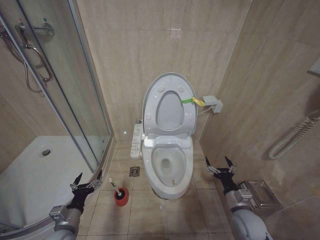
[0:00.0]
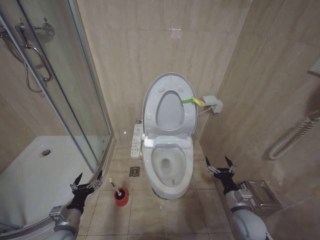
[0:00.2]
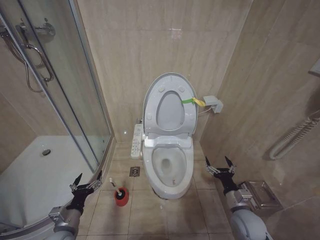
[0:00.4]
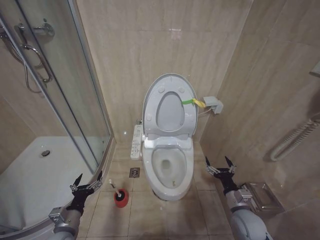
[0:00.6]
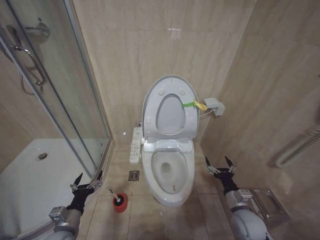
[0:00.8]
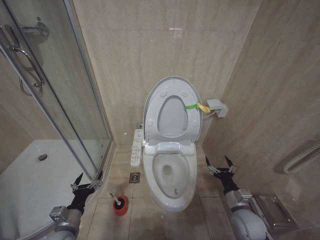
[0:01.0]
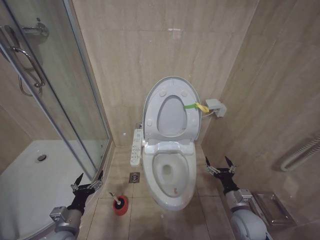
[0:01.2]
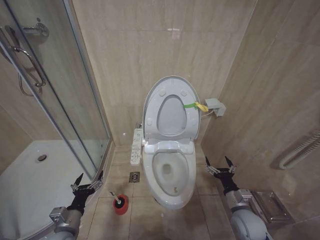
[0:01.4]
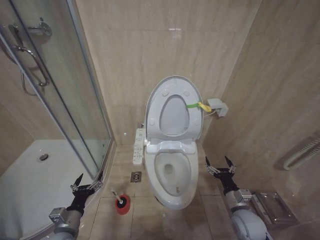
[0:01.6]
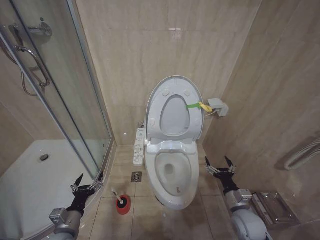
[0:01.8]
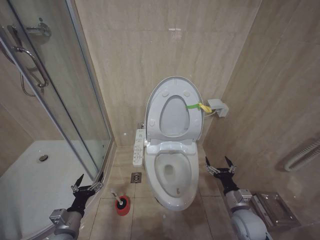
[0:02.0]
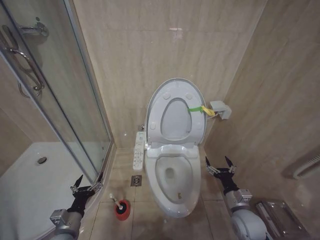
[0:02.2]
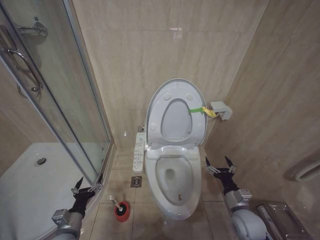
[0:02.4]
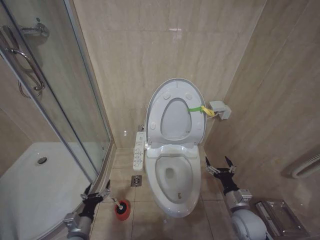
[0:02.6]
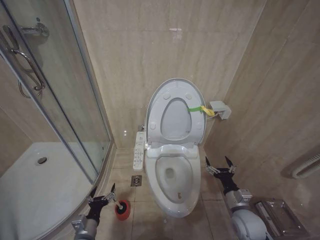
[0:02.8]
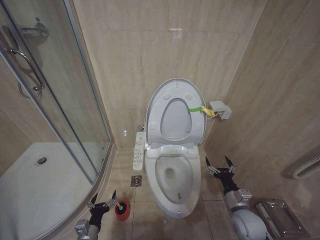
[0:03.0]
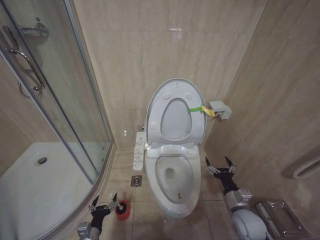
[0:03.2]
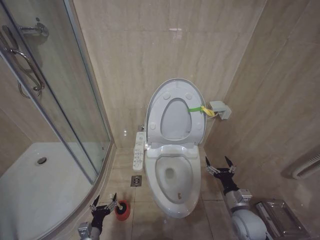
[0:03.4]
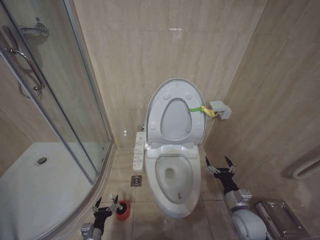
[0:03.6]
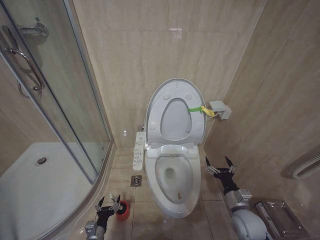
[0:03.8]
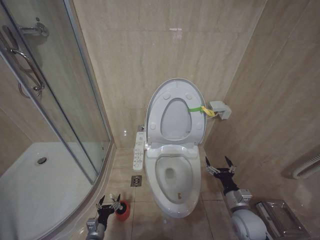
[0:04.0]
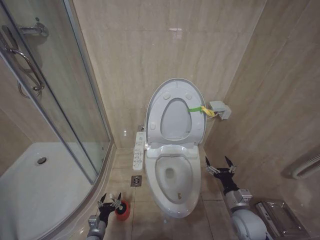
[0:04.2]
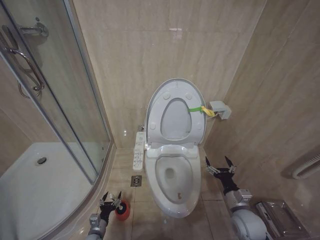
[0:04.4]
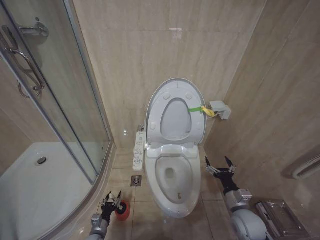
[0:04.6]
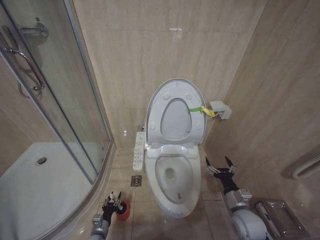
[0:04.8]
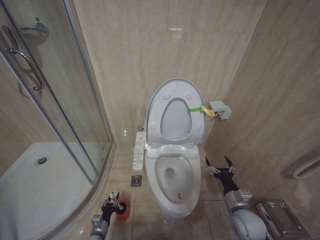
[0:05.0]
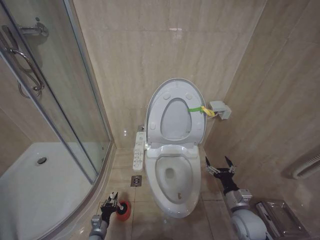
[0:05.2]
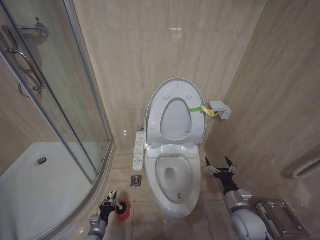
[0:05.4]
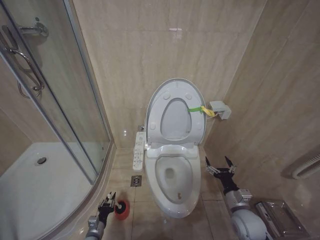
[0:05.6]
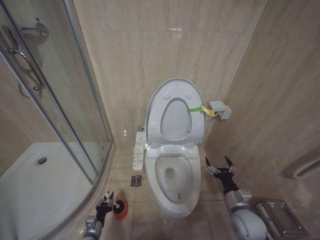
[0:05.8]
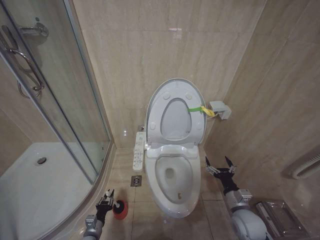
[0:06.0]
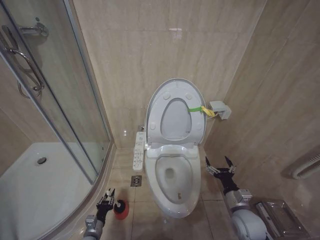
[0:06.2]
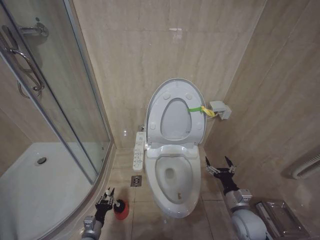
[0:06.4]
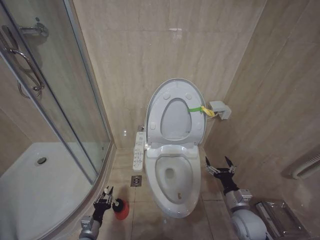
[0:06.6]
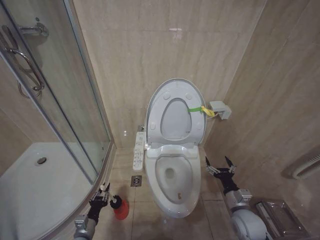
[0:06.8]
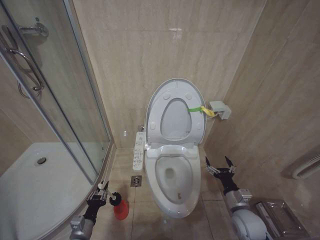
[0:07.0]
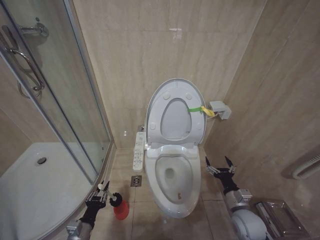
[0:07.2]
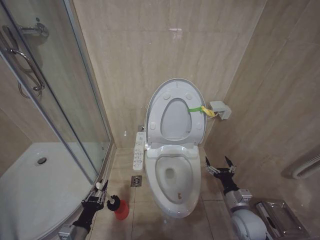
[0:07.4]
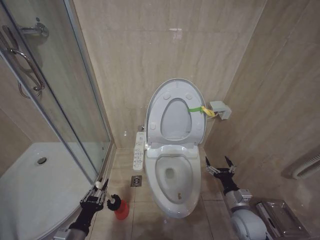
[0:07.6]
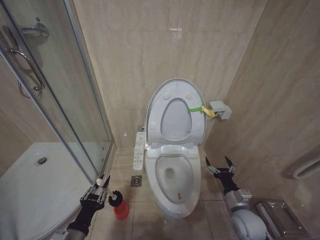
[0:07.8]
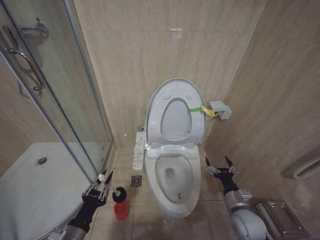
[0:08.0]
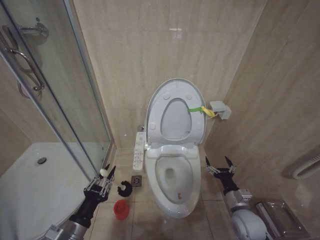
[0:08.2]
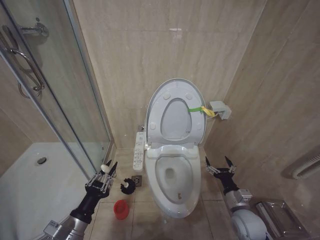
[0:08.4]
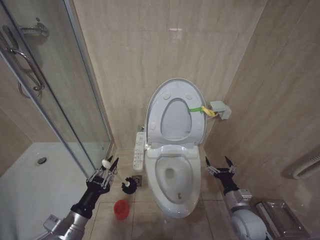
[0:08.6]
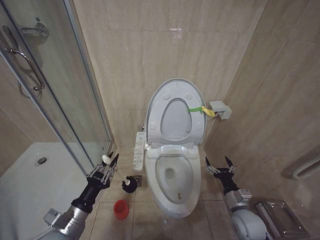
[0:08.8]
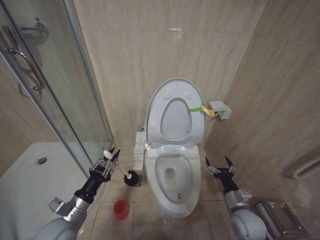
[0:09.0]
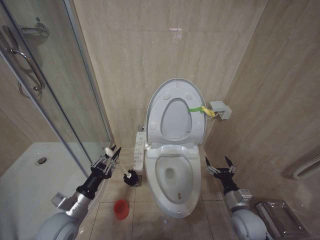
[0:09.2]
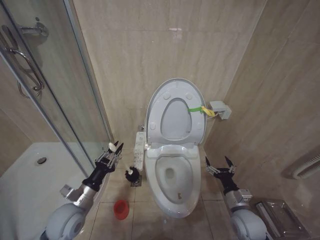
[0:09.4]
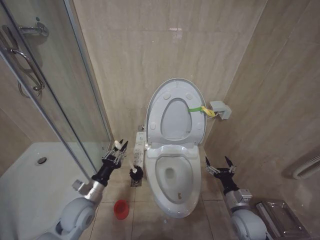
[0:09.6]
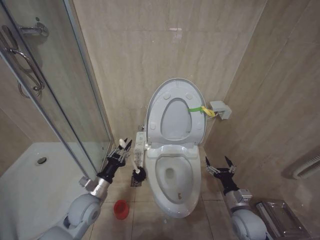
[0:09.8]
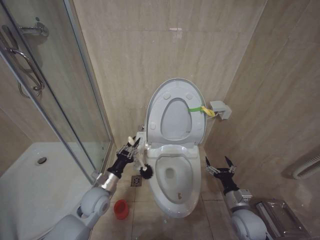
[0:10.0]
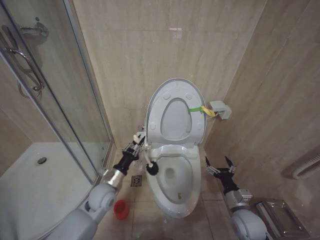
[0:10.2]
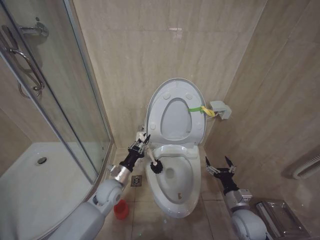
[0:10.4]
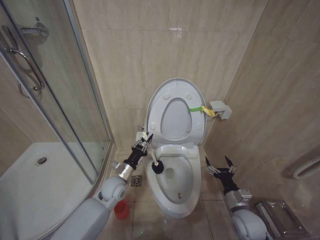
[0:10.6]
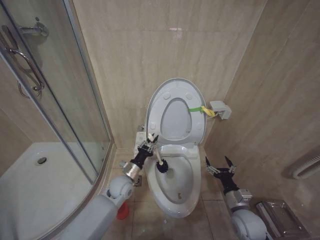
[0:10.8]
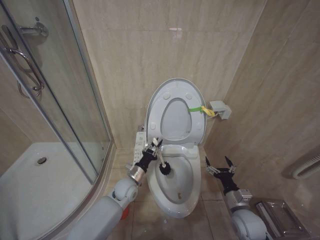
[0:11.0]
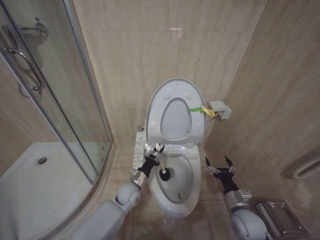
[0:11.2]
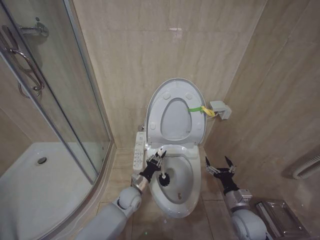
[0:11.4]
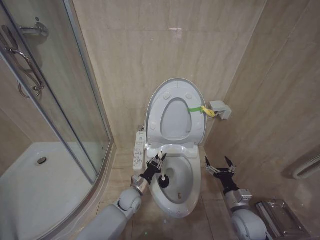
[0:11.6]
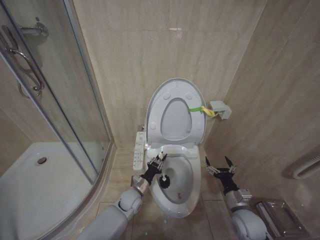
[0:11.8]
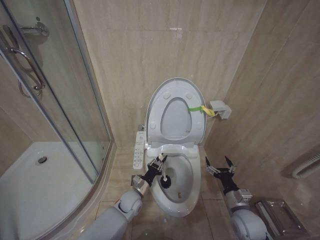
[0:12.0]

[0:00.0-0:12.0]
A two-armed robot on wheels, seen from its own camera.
Task of the whole recording: Open the toilet lid, clean the toilet bowl with a toilet brush, close the toilet lid, and flush.
0:00.0 to 0:01.6: Both grippers stay put.
0:01.6 to 0:03.0: The left gripper shifts roughly 10 cm downward.
0:03.0 to 0:04.4: The left gripper shifts approximately 10 cm downward.
0:04.4 to 0:06.0: The left gripper closes up.
0:06.0 to 0:07.6: The left gripper shifts about 20 cm upward and backward.
0:07.6 to 0:09.0: The left gripper shifts roughly 10 cm upward and forward.
0:09.0 to 0:10.4: The left gripper moves forward and to the right, some 20 cm.
0:10.4 to 0:12.0: The left gripper travels downward and to the right by some 15 cm.

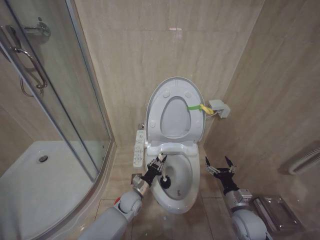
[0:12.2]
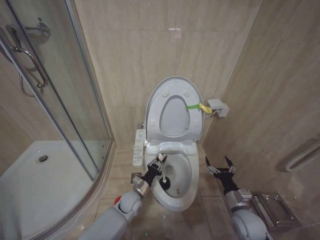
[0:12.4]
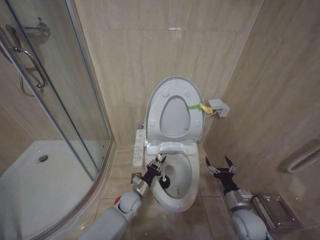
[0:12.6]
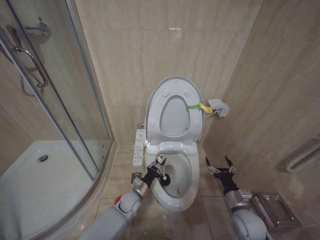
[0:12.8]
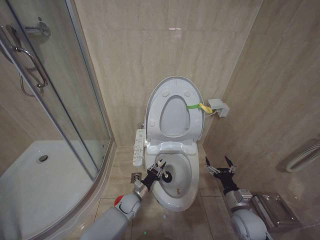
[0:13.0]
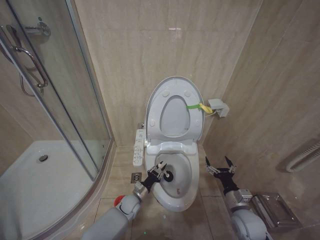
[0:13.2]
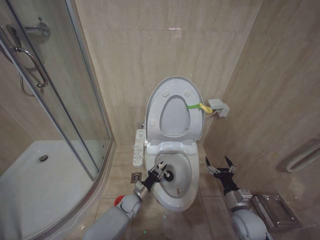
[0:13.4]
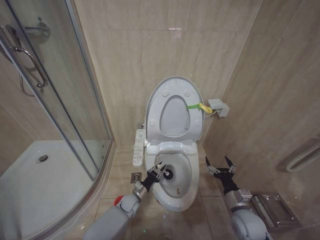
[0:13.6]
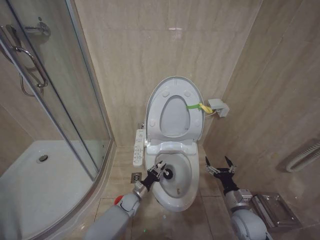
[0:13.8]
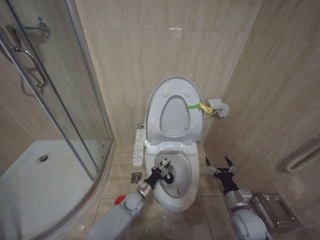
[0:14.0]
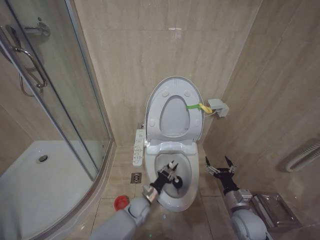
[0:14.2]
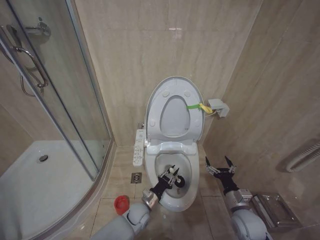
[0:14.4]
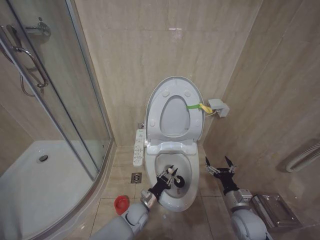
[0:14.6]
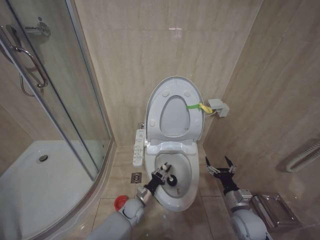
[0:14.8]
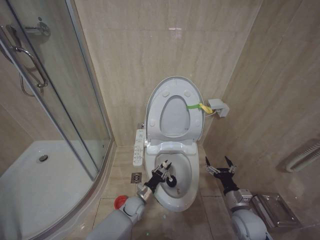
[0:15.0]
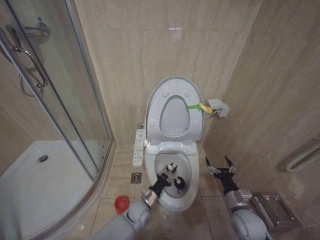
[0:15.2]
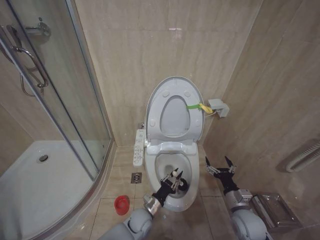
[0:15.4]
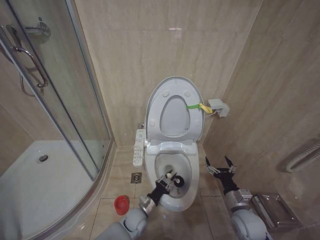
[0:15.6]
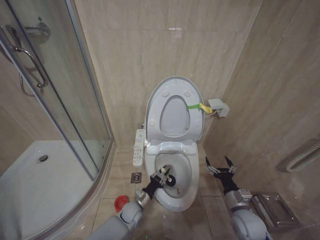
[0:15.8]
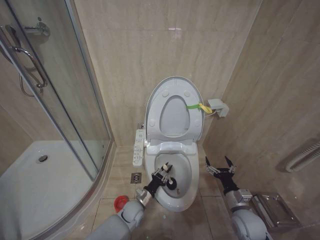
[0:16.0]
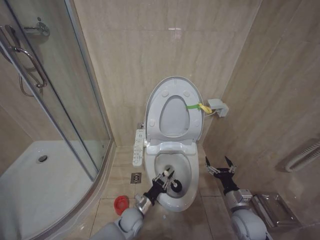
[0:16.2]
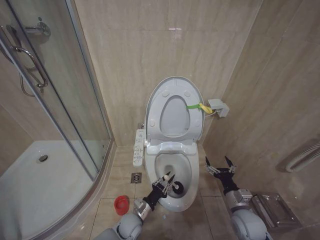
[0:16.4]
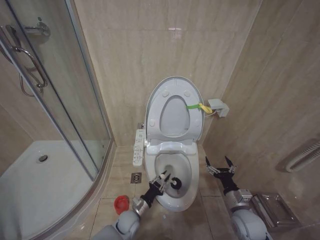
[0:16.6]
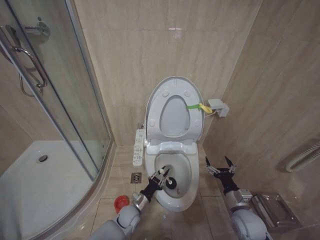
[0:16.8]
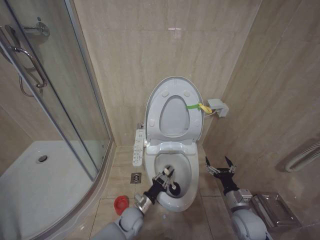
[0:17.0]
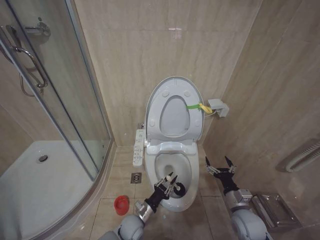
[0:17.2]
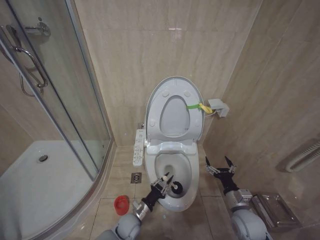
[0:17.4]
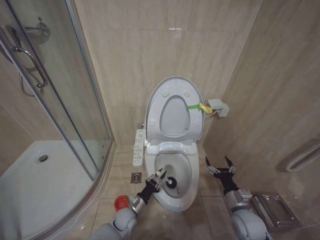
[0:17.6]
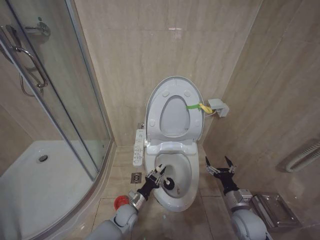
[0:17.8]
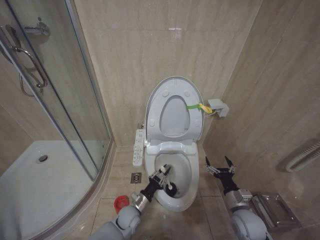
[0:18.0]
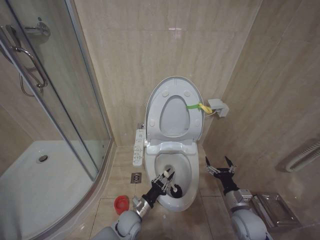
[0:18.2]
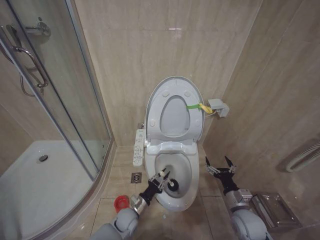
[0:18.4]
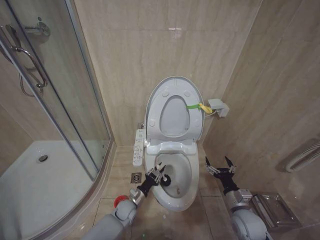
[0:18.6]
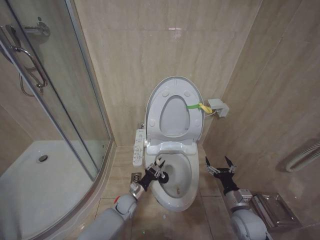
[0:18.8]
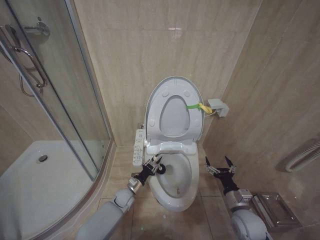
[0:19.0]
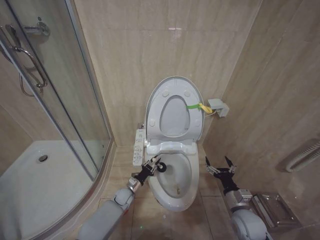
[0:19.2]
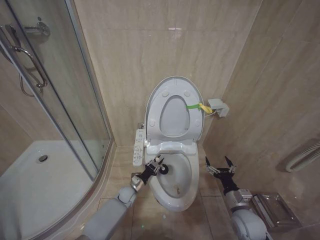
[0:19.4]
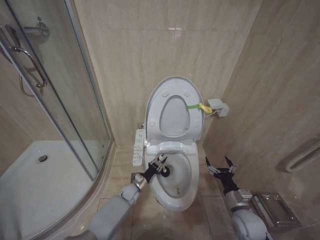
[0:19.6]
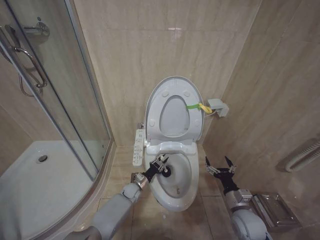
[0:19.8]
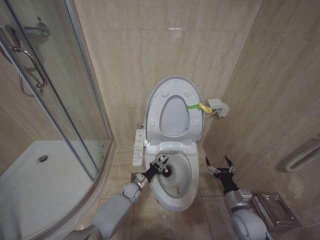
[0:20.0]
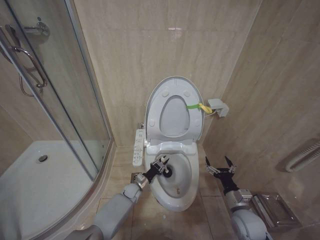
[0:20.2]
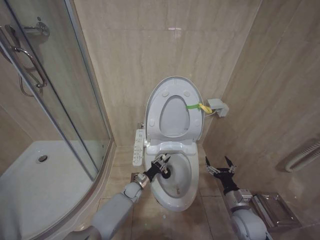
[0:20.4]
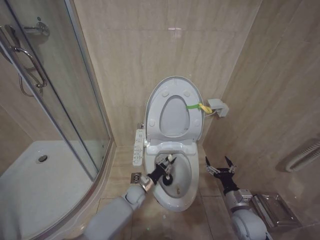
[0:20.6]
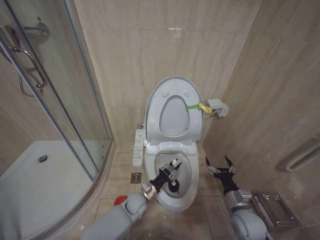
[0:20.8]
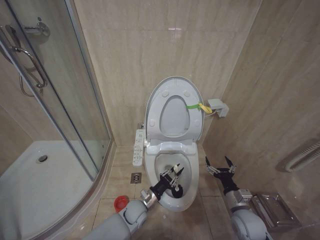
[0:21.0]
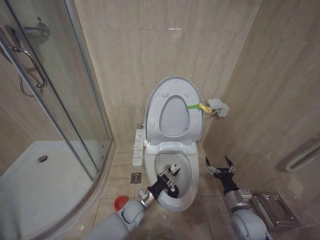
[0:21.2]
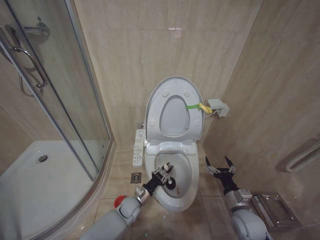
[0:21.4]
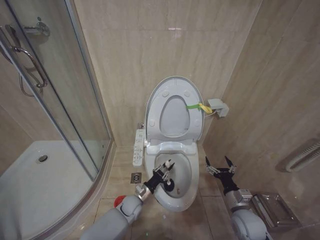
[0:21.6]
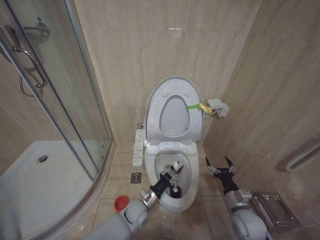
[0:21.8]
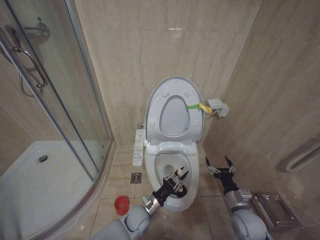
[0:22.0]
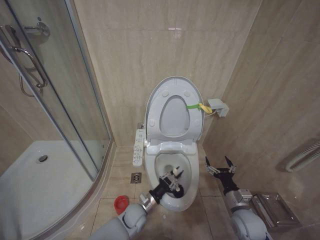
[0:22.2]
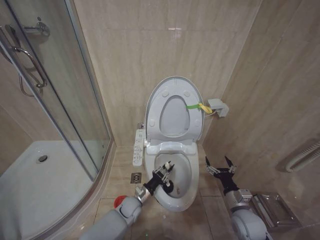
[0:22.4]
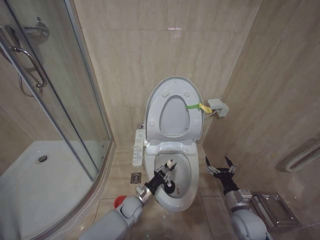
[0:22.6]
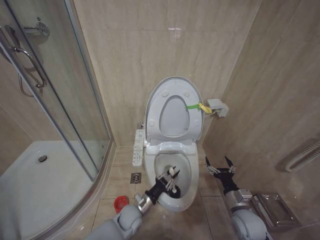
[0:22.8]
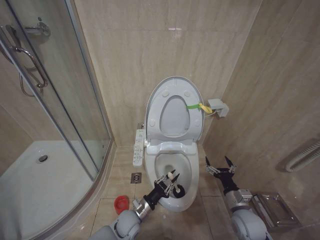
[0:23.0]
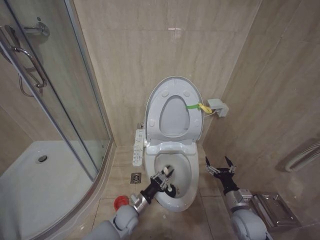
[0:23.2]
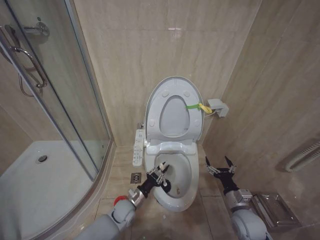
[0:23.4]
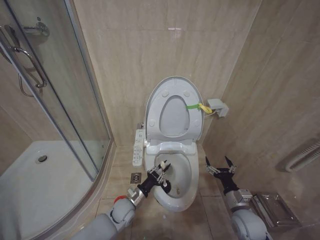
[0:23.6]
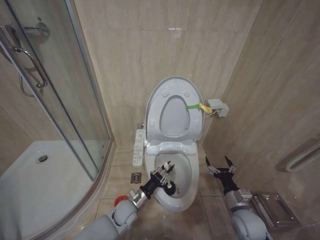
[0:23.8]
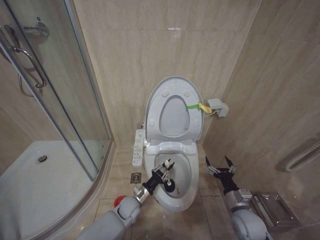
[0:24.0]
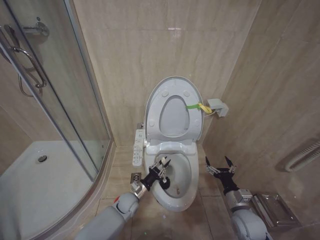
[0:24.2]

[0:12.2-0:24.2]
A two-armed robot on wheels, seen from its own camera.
Task of the whole recording: Open the toilet lid, clean the toilet bowl with a toilet brush, close the toilet lid, and flush.
0:12.2 to 0:13.8: The left gripper is displaced downward by approximately 10 cm.
0:13.8 to 0:15.2: The left gripper changes place by about 5 cm.
0:15.2 to 0:16.6: The left gripper goes forward and backward, some 5 cm each way, reversing 2 times.
0:18.2 to 0:19.8: The left gripper heads forward, covering some 15 cm.
0:19.8 to 0:21.2: The left gripper goes approximately 10 cm backward and upward.
0:21.2 to 0:22.6: The grippers make only small movements.
